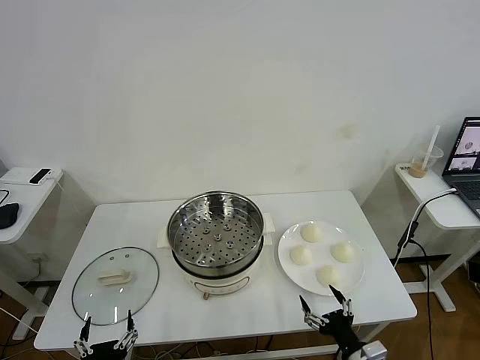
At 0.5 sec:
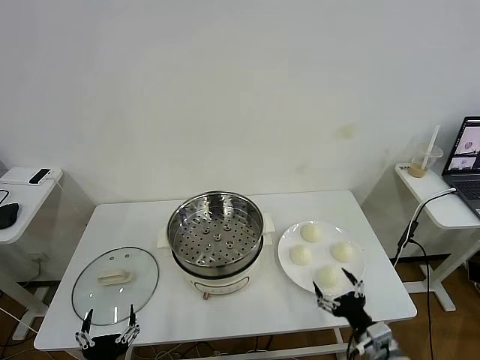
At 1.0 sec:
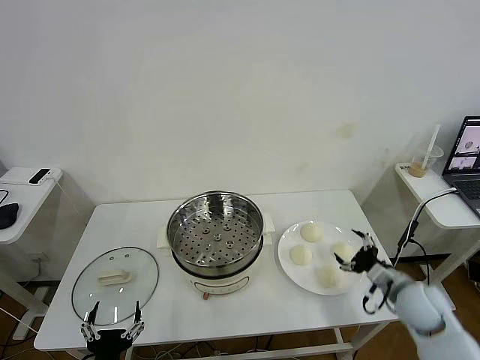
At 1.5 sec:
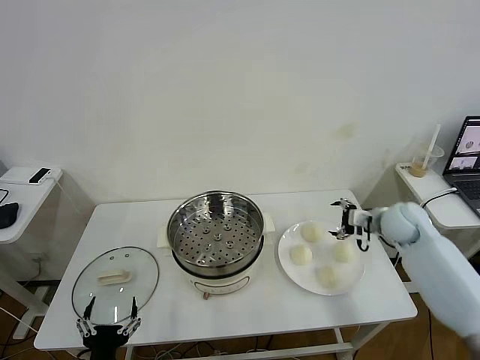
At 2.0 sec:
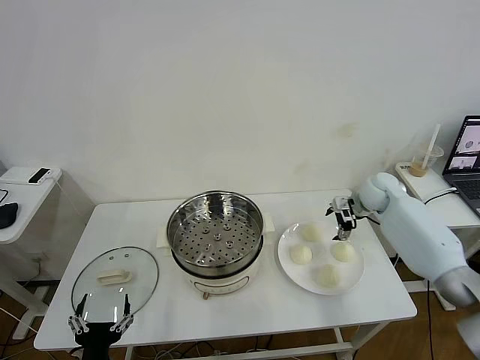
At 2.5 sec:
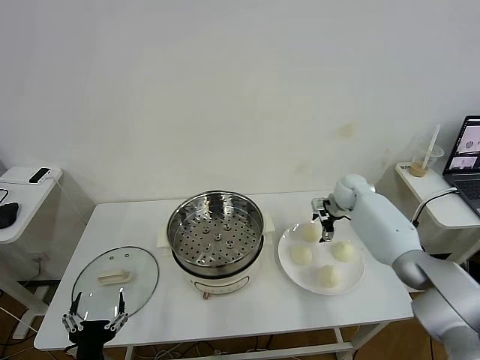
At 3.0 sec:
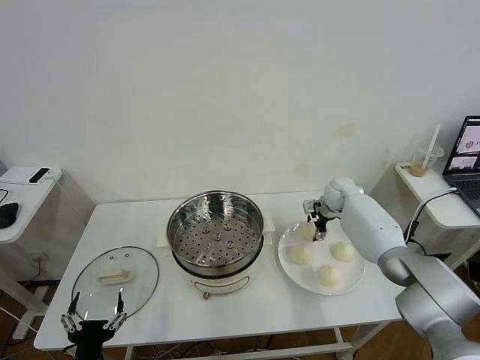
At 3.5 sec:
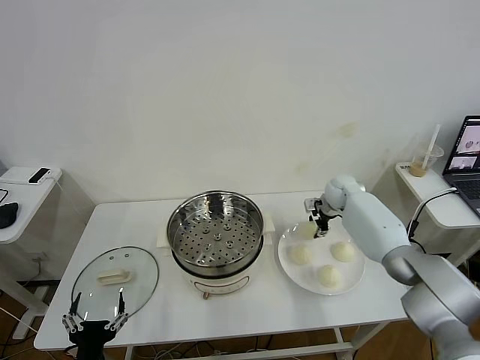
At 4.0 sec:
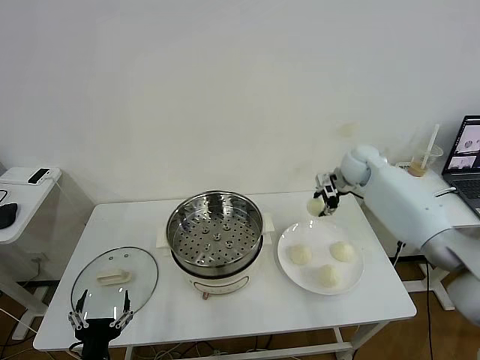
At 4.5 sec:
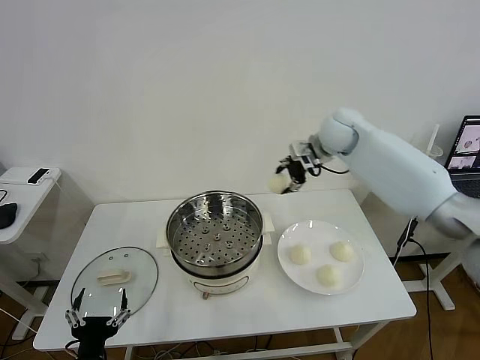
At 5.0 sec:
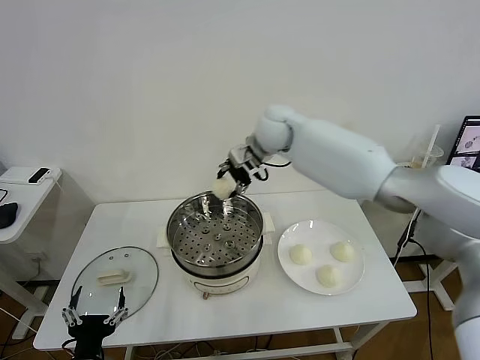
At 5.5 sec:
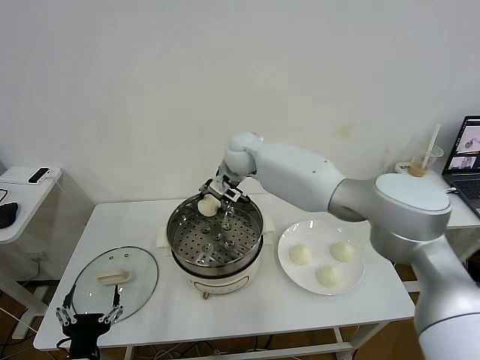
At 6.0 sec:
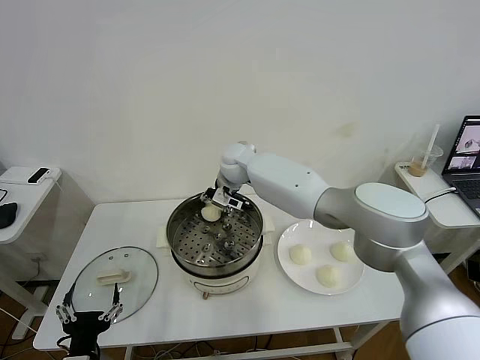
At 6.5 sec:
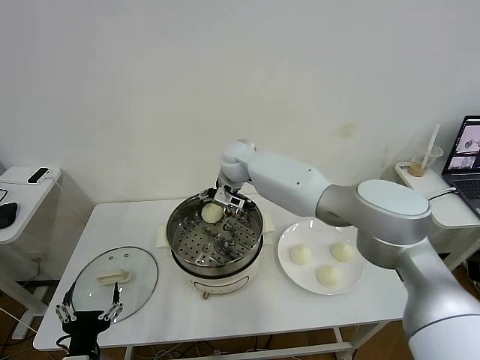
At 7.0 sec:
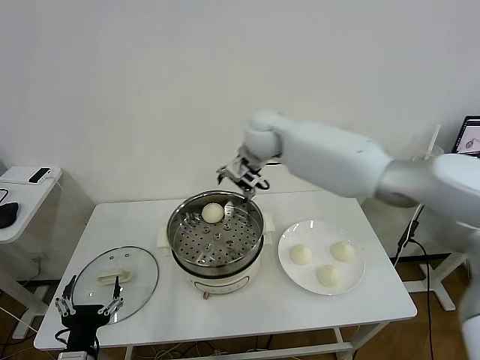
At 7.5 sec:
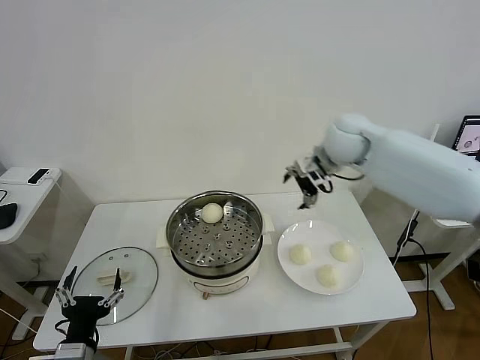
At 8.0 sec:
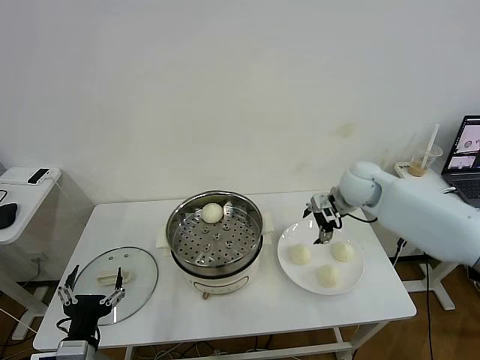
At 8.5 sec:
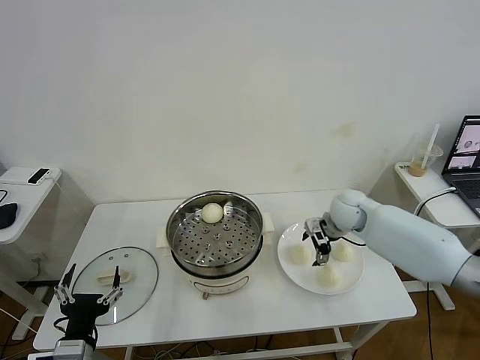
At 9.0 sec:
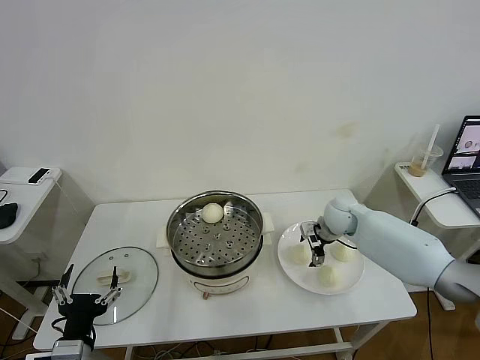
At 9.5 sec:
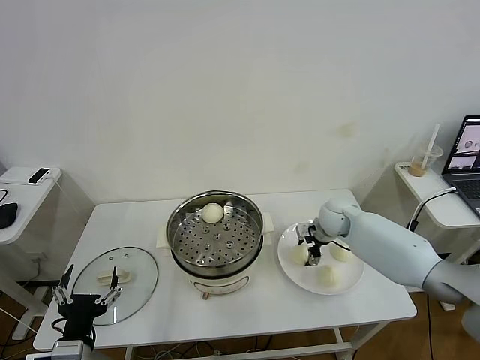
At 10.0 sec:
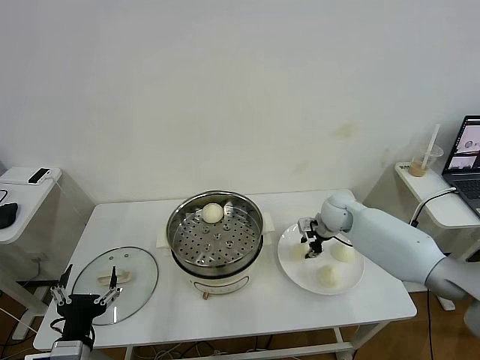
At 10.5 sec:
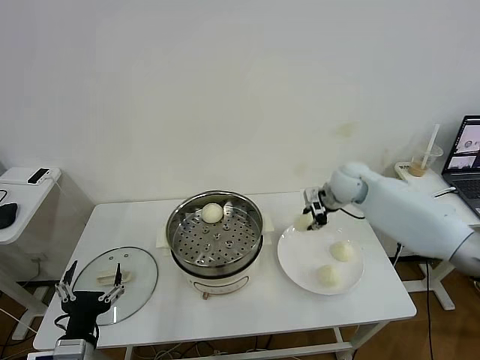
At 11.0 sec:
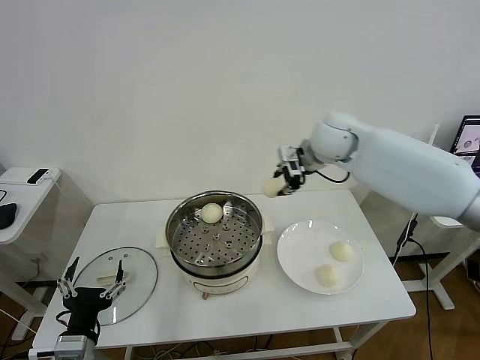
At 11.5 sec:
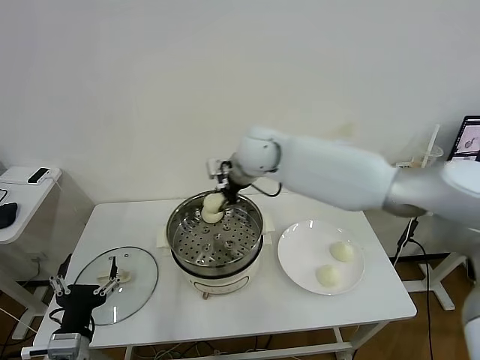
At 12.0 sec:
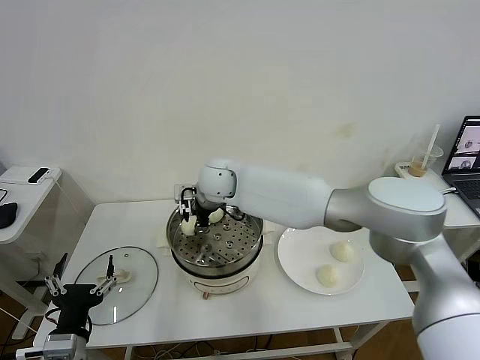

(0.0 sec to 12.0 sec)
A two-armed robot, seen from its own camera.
Task of the whole recording: take steamed baozi put them in steamer then cover it.
Step, 0.0 sec - 3.0 sec: Grasp the baozi in the plate with right gripper.
Step, 3.5 sec - 6.5 sec: Place the baozi on the steamer with right gripper.
Step, 7.0 sec - 9.5 sec: Grasp the baozi in the plate with right gripper.
2.0 sec - 4.0 sec: The right gripper travels upward and to the left by approximately 10 cm, and closes up.
4.0 sec - 6.0 sec: The right gripper shifts about 30 cm to the left.
6.0 sec - 8.0 sec: The right gripper travels to the right by approximately 30 cm, and opens its fingers.
8.0 sec - 10.0 sec: The right gripper is displaced downward by some 10 cm, and closes its fingers.
10.0 sec - 12.0 sec: The right gripper shifts roughly 35 cm to the left and upward.

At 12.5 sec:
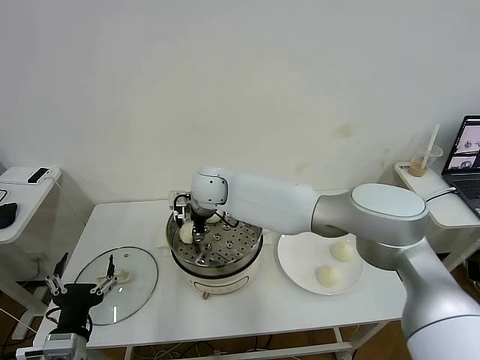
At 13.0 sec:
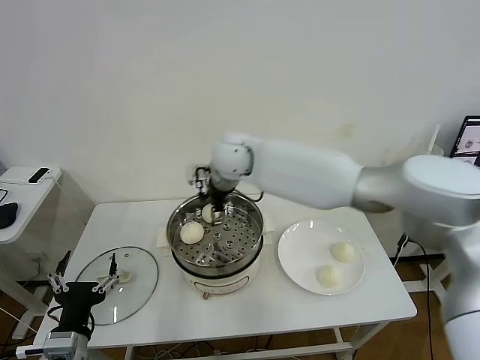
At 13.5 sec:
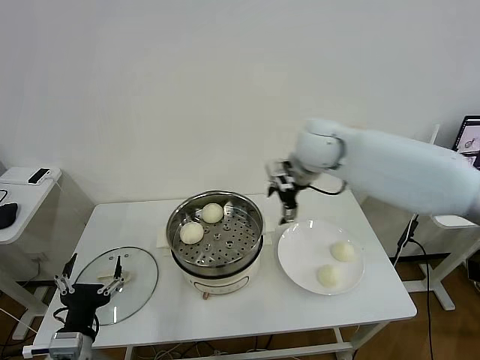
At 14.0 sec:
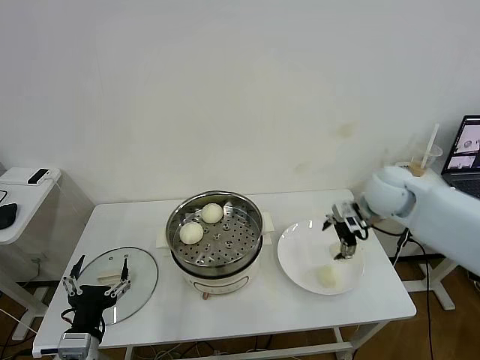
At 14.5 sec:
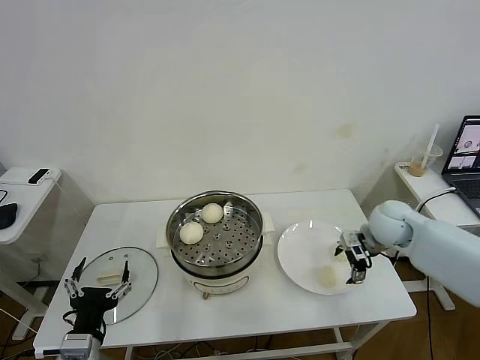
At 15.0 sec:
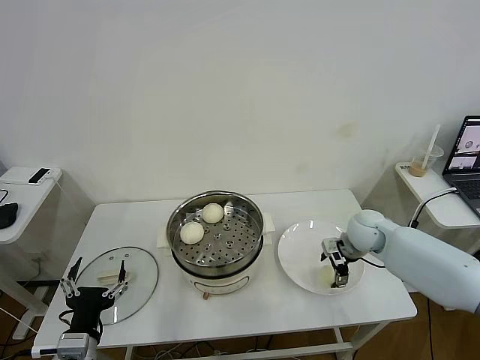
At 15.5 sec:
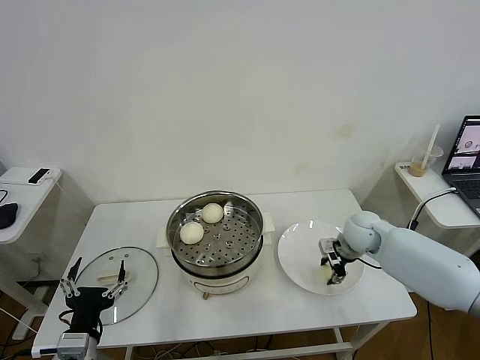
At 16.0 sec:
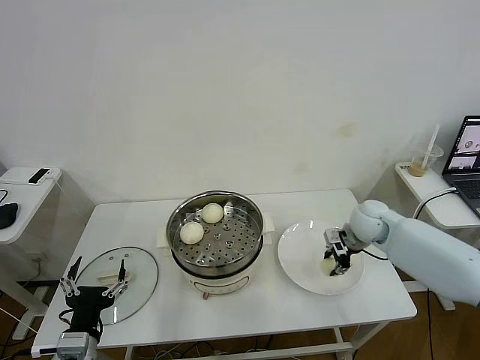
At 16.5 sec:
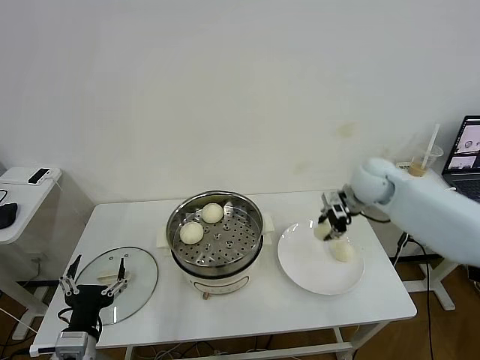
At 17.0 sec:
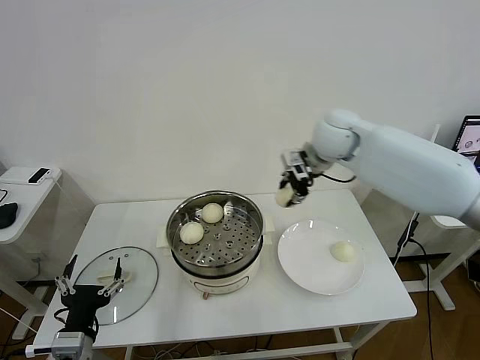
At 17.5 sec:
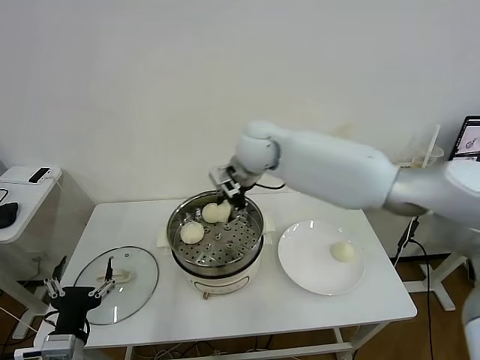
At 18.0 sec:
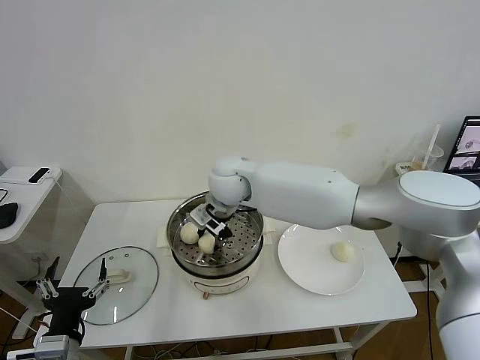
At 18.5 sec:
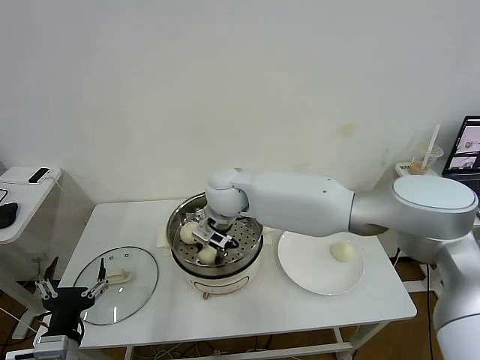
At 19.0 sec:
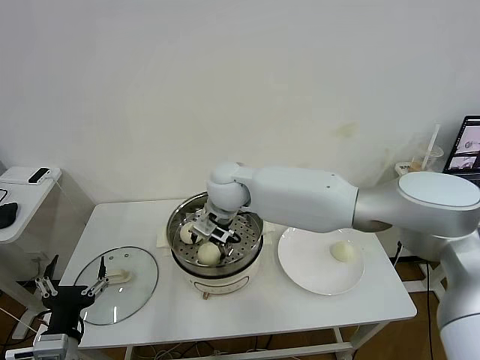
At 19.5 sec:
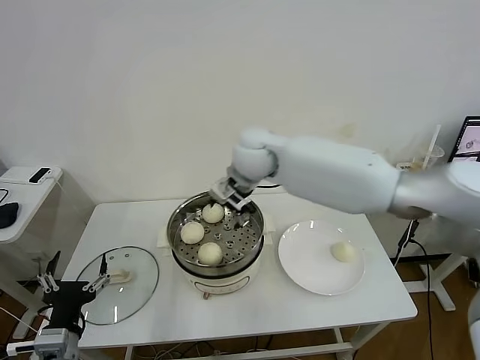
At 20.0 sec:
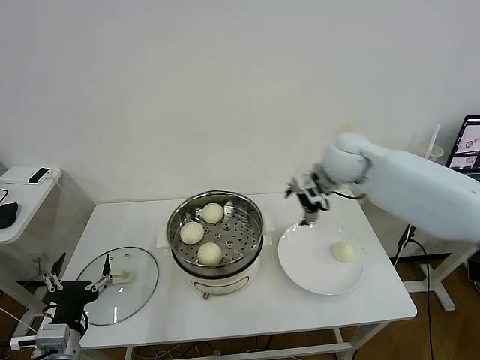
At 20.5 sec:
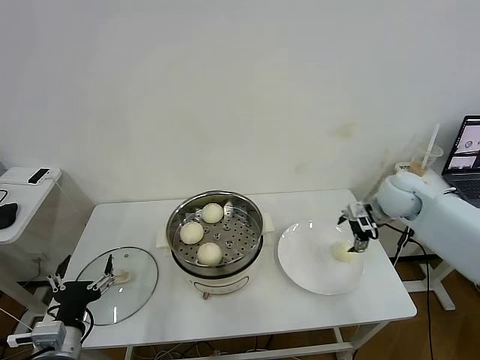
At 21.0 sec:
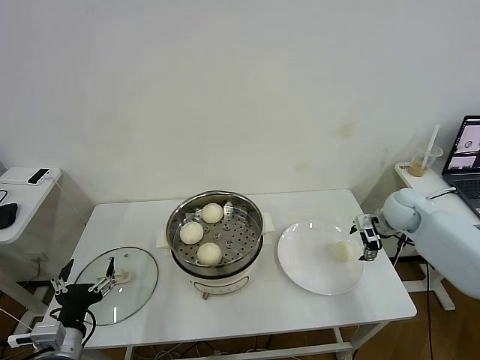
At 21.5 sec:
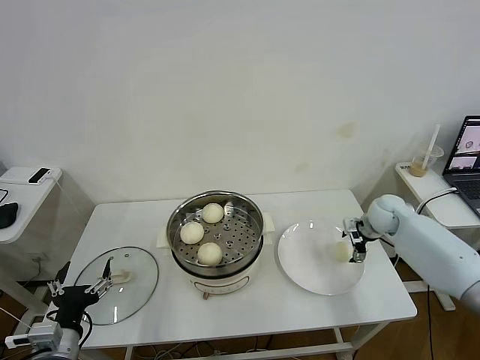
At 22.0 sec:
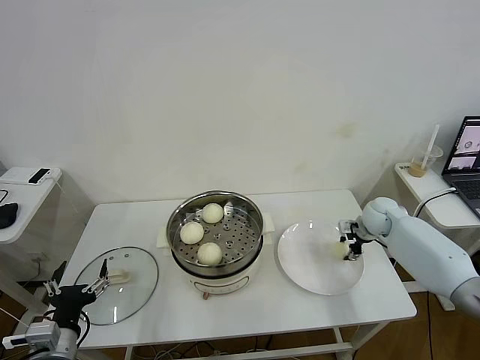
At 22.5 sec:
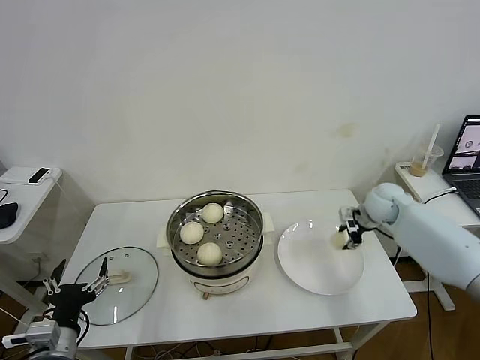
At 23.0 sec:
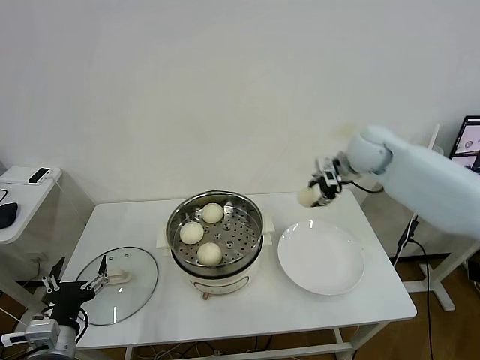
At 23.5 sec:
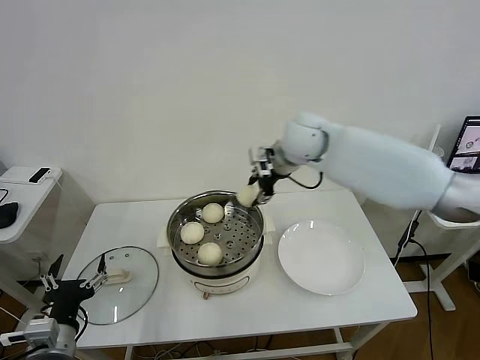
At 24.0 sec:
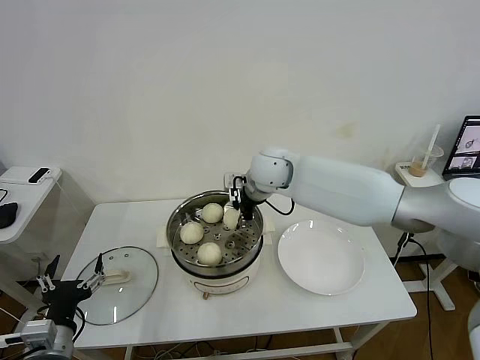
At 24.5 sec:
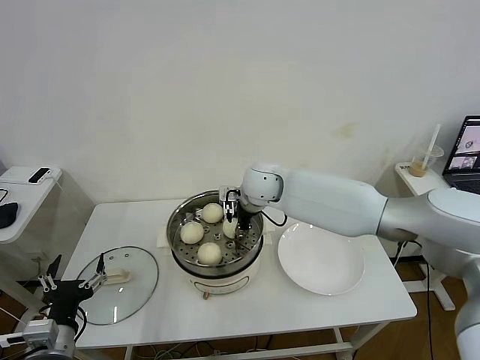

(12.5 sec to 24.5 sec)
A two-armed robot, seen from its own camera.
Task of the whole recording: take steamed baozi put them in steamer then cover it.
Step, 13.0 sec - 15.5 sec: Grasp the baozi in the plate with right gripper.
Step, 16.0 sec - 19.0 sec: Place the baozi on the steamer with right gripper.
Step, 19.5 sec - 22.0 sec: Grasp the baozi in the plate with right gripper.
12.5 sec - 14.5 sec: The right gripper shifts some 40 cm to the right, and opens up.
14.5 sec - 16.5 sec: The right gripper shifts about 10 cm upward and forward, and closes.
16.5 sec - 18.5 sec: The right gripper heads to the left, covering some 35 cm.
18.5 sec - 20.5 sec: The right gripper heads to the right, covering roughly 40 cm, and opens.
20.5 sec - 22.5 sec: The right gripper shifts roughly 10 cm downward, and closes.
22.5 sec - 24.5 sec: The right gripper shifts approximately 30 cm to the left.

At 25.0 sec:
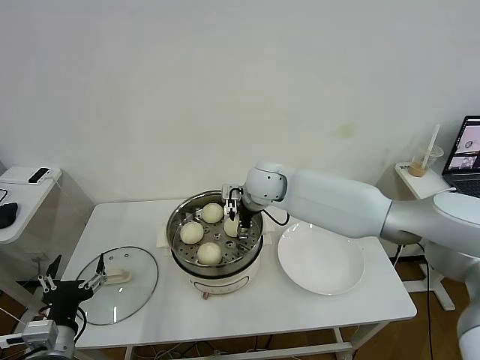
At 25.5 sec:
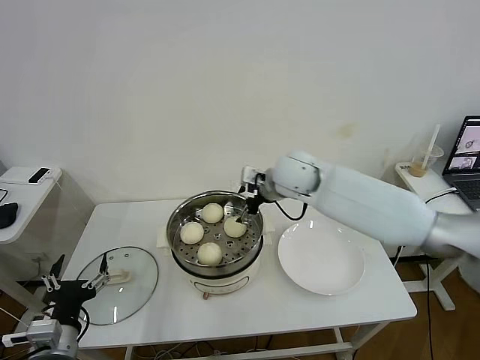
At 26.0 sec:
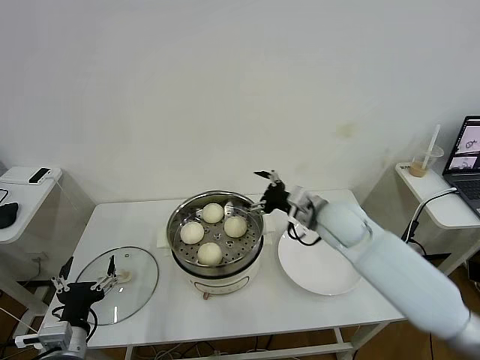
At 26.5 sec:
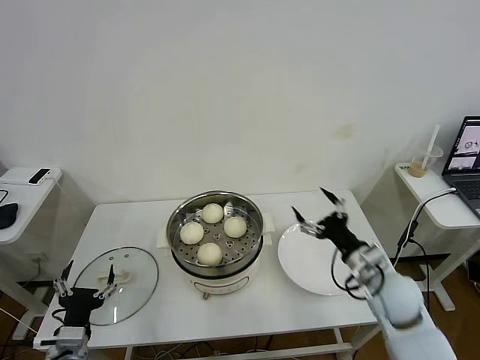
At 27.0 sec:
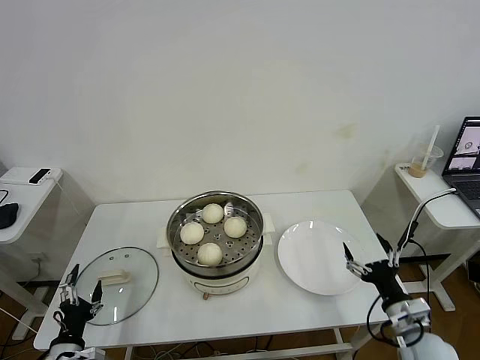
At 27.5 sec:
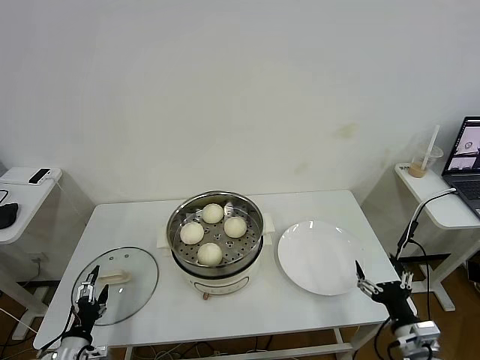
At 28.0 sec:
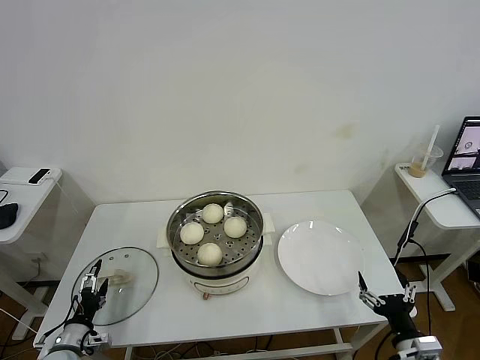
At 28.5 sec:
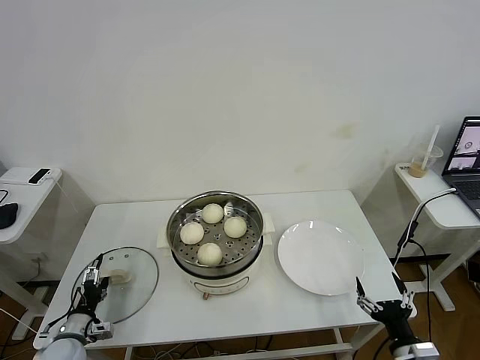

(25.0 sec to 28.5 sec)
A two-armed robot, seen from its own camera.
Task of the whole recording: take steamed baozi put them in steamer then cover it.
25.0 sec - 27.0 sec: The right gripper heads to the right, backward and downward, covering approximately 50 cm. The left gripper heads downward, covering some 10 cm.
27.0 sec - 28.5 sec: The right gripper heads backward, covering approximately 10 cm, while the left gripper goes roughly 10 cm forward, downward and to the left.
